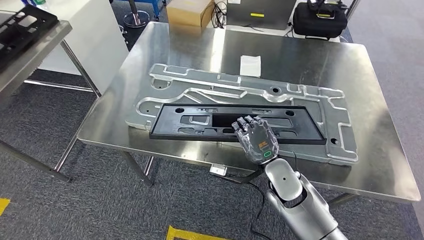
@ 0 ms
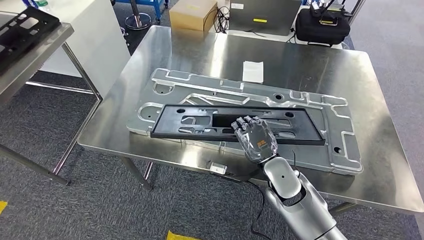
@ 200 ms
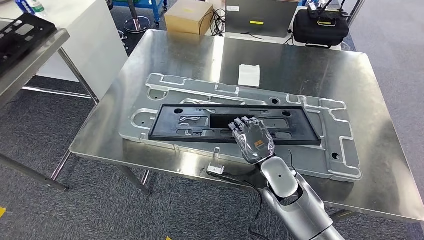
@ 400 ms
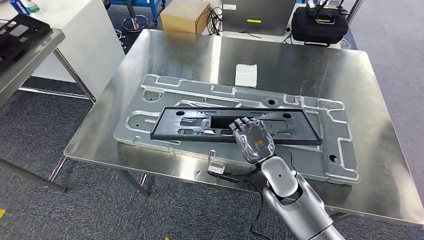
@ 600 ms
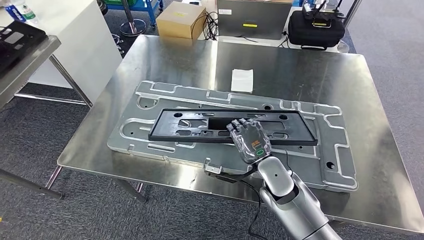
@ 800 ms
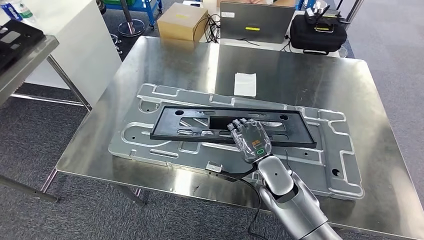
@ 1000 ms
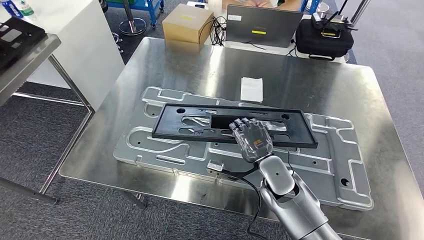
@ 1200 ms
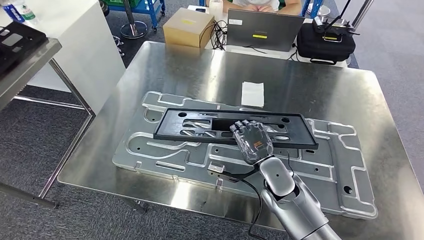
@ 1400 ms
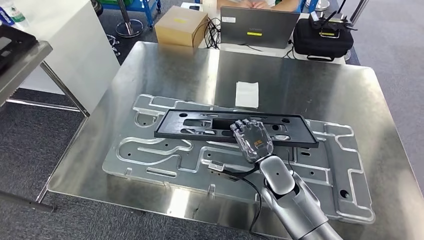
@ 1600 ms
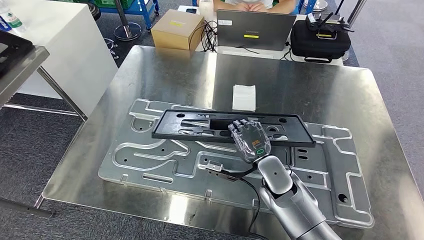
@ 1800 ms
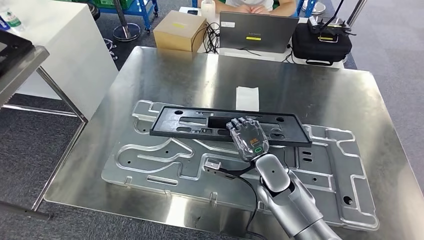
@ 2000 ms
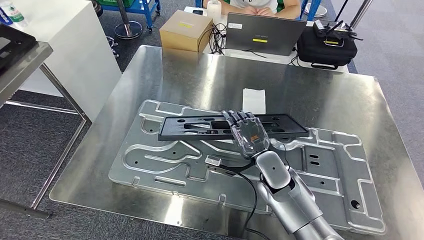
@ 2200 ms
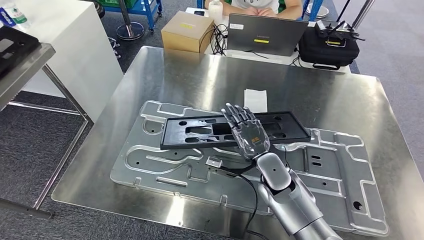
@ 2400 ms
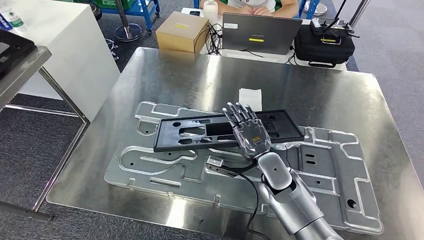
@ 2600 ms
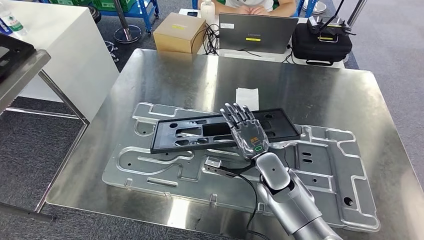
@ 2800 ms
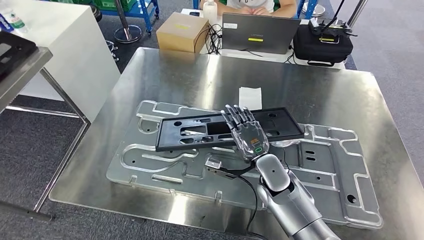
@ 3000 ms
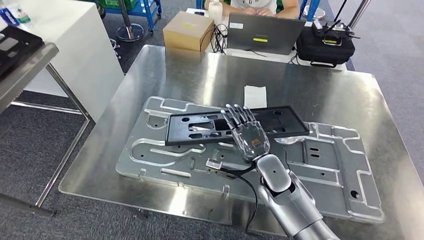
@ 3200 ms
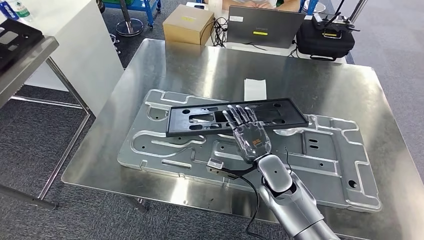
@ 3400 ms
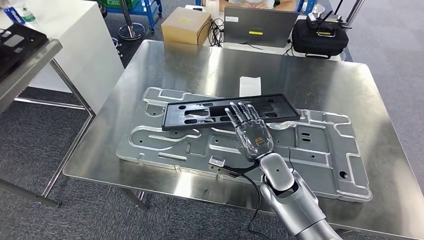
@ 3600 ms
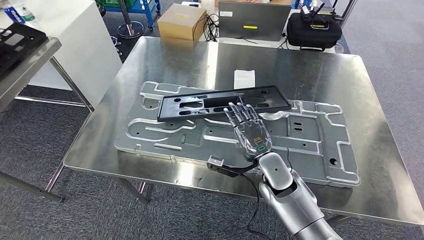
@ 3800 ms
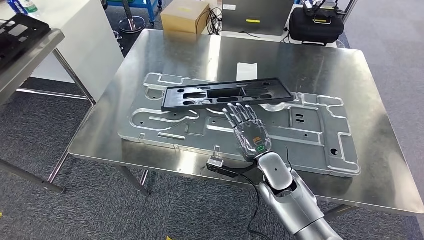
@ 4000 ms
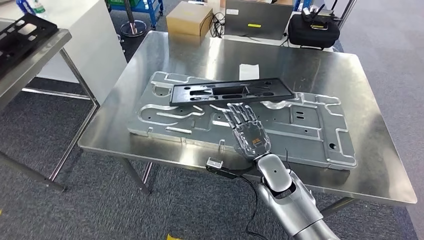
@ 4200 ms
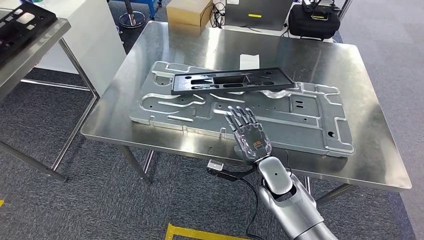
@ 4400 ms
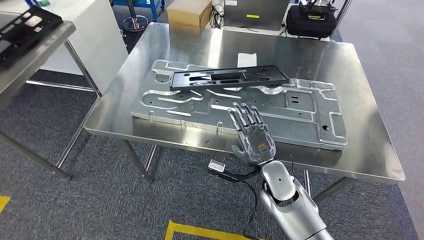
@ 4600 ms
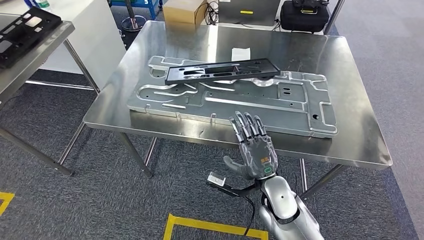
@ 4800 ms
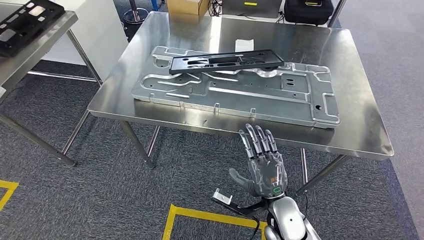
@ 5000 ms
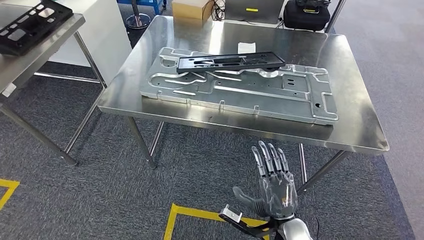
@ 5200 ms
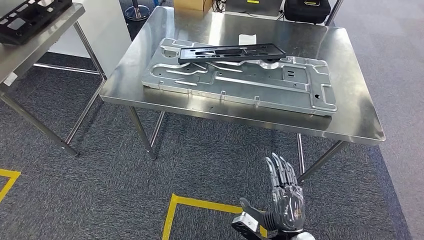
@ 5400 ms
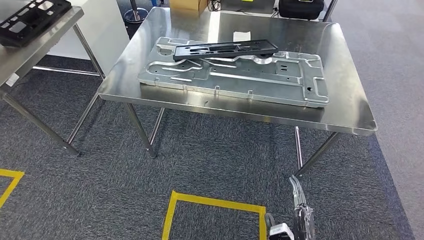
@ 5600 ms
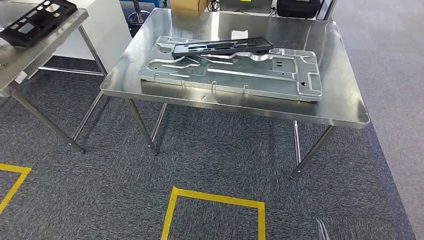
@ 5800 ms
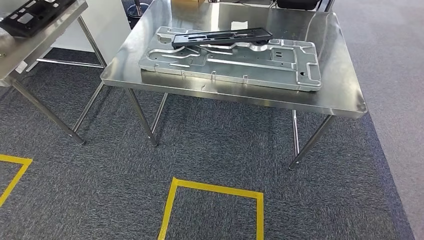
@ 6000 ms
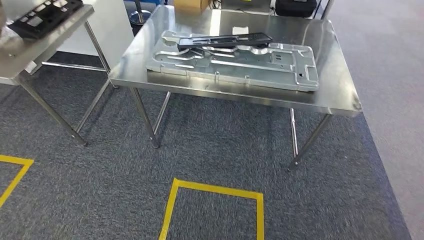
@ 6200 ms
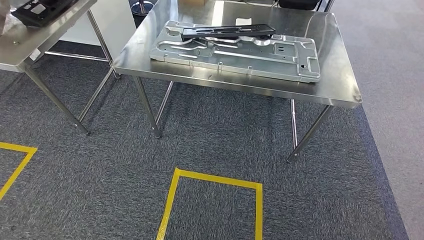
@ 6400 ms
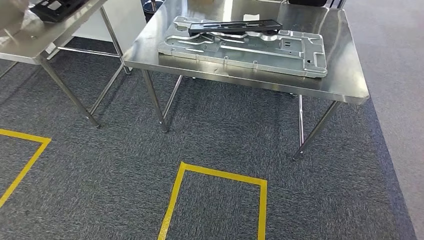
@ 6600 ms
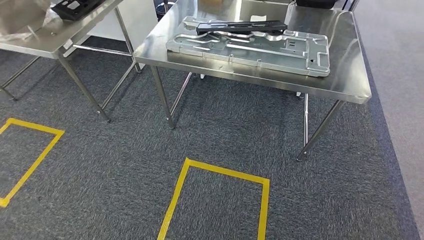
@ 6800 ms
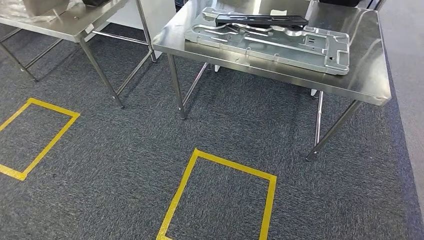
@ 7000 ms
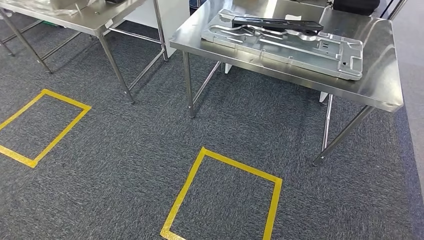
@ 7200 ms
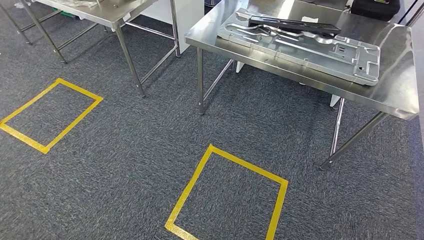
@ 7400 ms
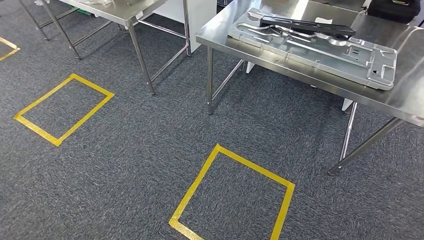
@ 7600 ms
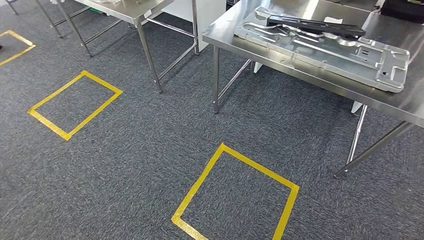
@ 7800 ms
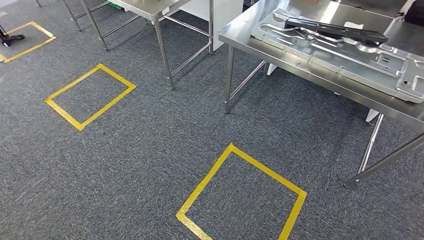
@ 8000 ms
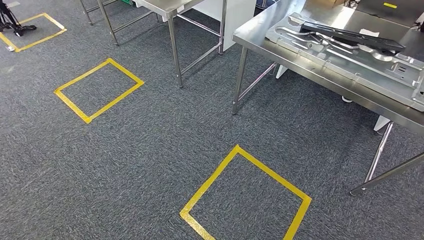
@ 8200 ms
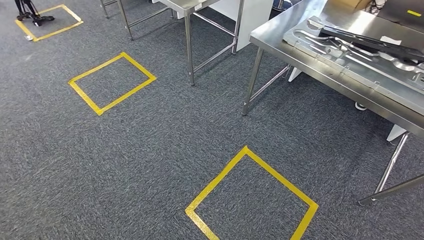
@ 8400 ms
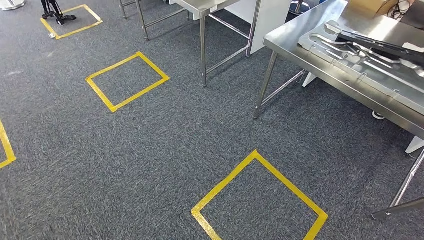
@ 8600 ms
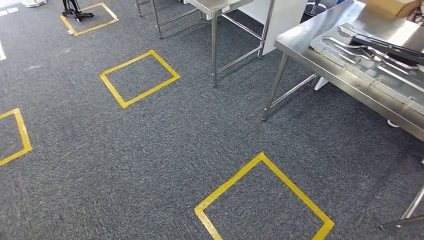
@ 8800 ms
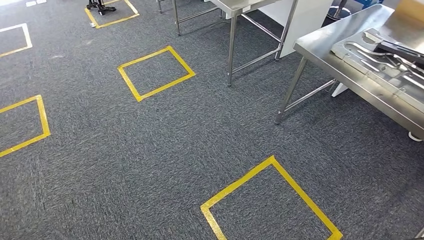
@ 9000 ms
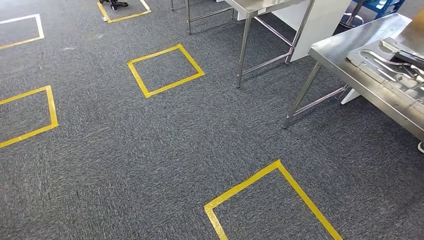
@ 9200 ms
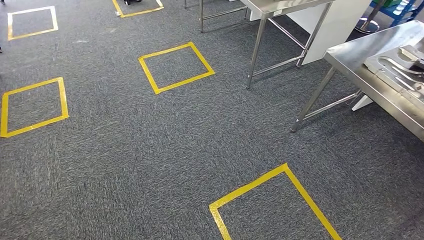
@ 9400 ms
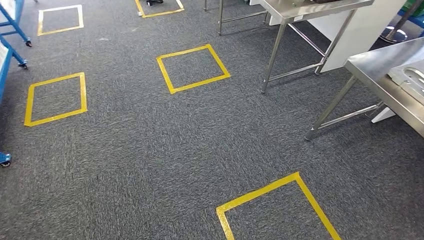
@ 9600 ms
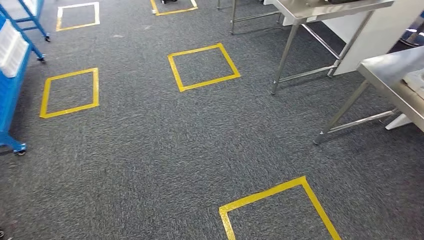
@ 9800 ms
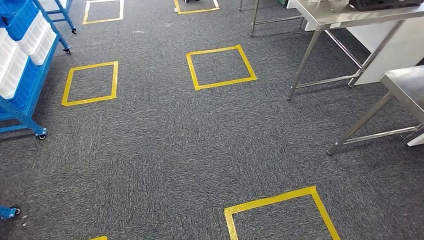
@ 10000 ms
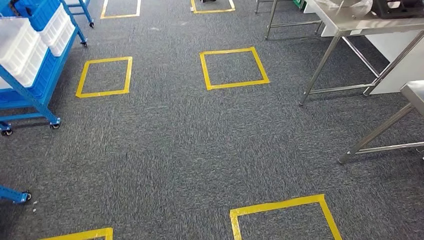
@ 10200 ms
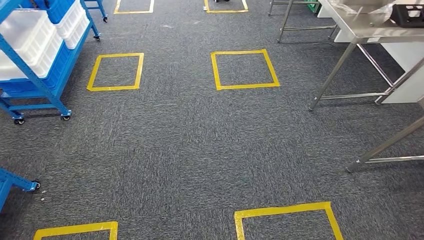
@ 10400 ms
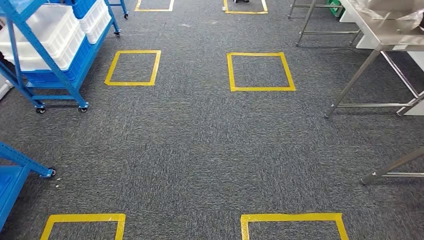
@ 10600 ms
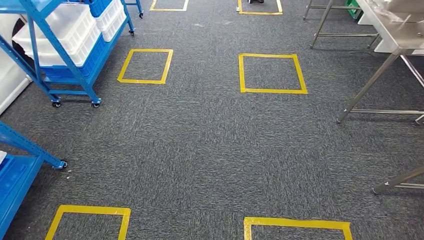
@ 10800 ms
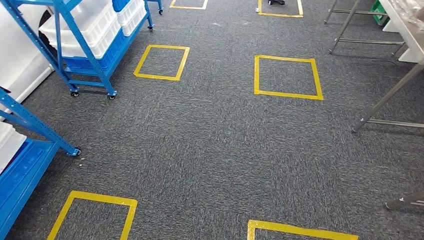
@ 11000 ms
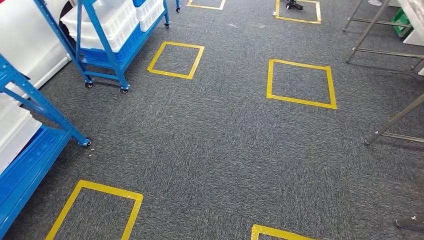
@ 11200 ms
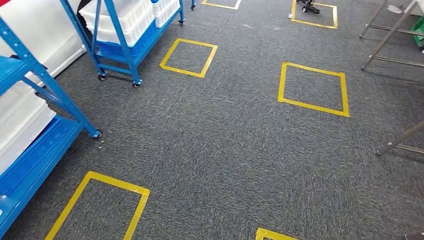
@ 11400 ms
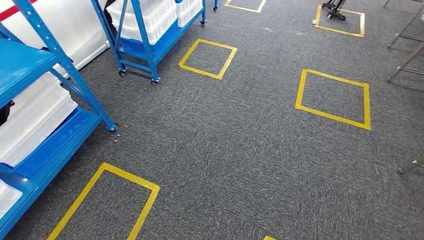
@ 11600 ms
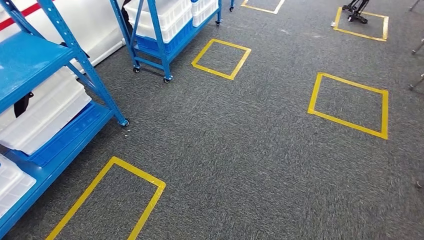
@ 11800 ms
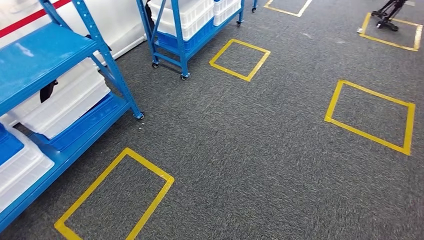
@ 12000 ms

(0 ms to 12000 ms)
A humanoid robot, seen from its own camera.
Step, 0 ms - 6800 ms: Insert the large material into the corresponding slot on the workbench.

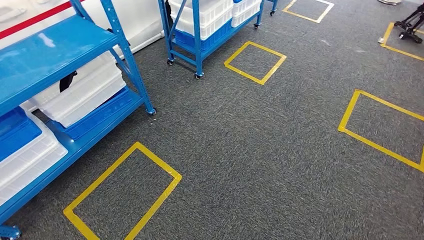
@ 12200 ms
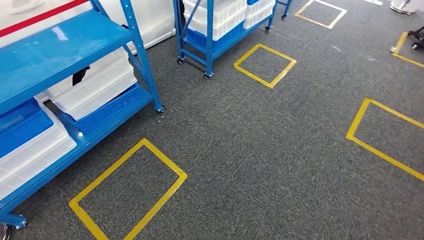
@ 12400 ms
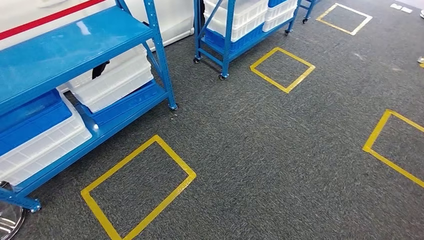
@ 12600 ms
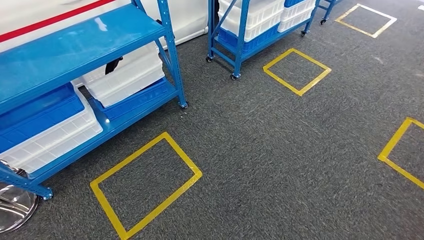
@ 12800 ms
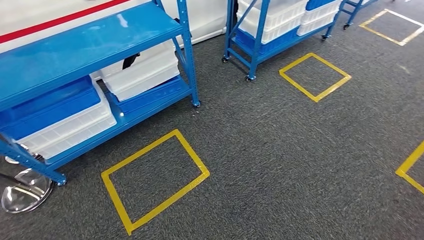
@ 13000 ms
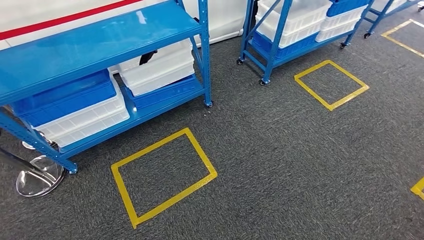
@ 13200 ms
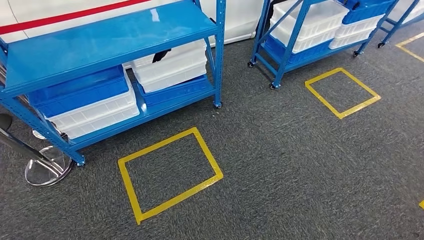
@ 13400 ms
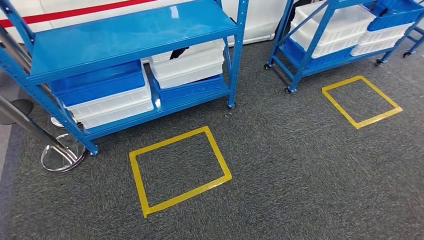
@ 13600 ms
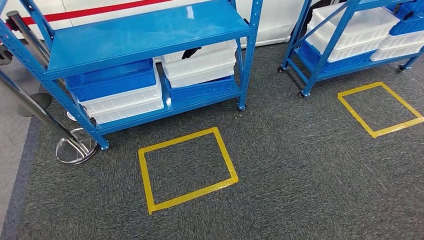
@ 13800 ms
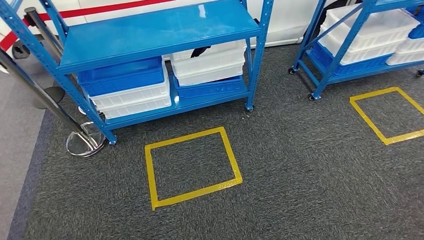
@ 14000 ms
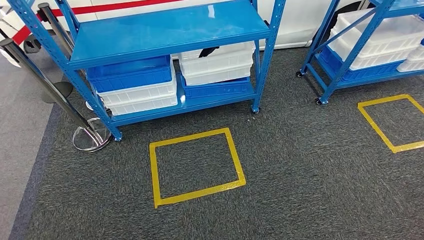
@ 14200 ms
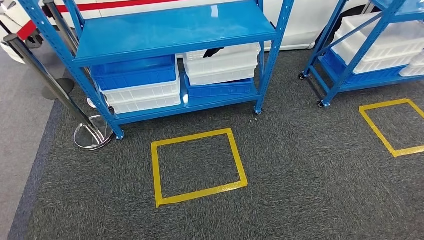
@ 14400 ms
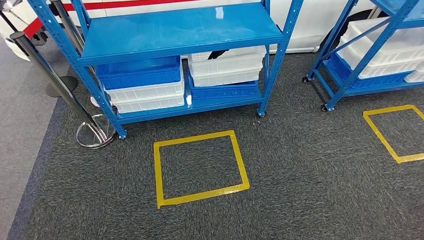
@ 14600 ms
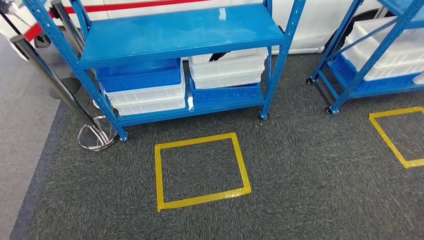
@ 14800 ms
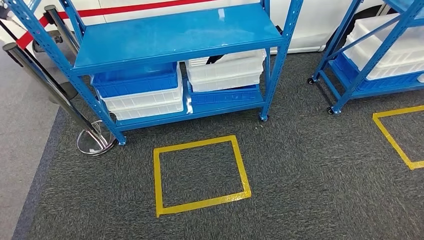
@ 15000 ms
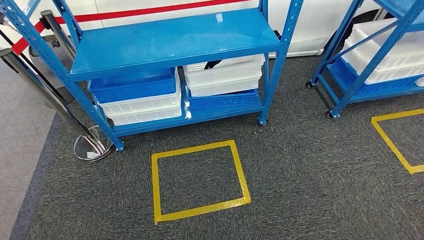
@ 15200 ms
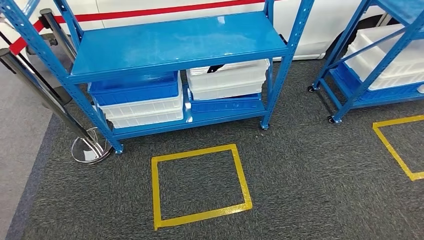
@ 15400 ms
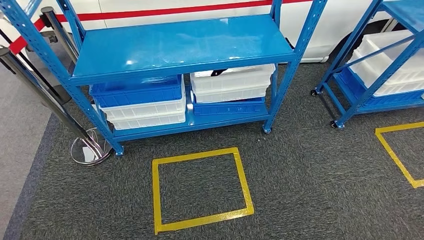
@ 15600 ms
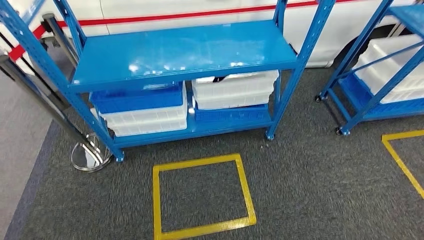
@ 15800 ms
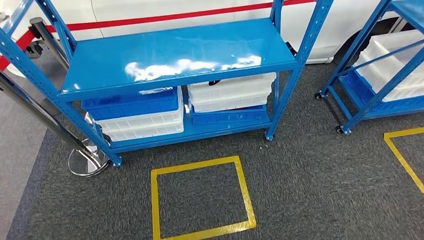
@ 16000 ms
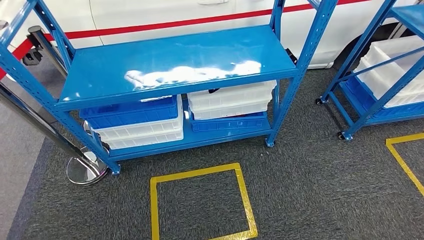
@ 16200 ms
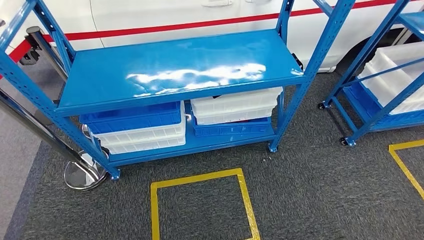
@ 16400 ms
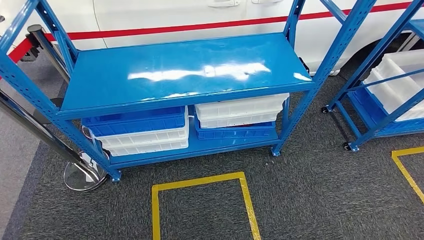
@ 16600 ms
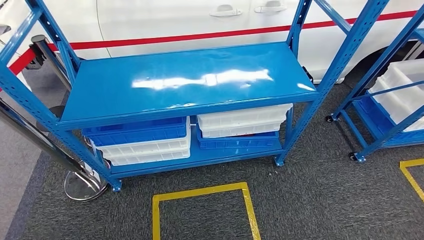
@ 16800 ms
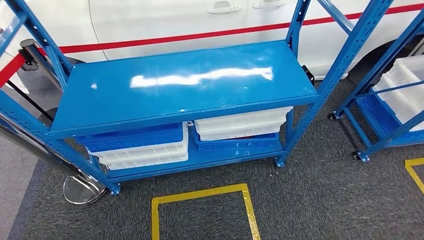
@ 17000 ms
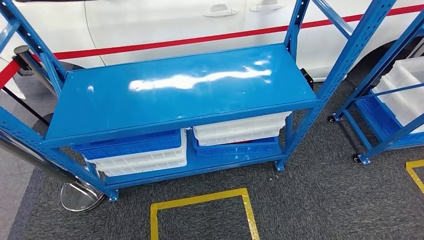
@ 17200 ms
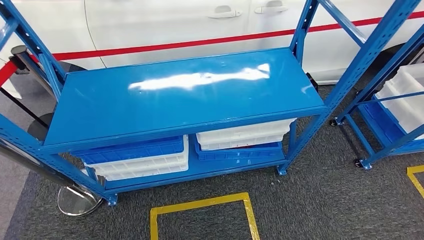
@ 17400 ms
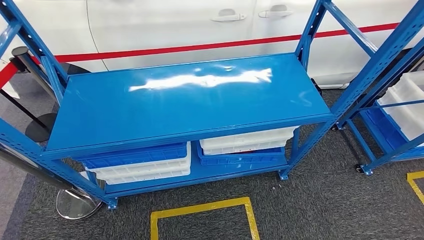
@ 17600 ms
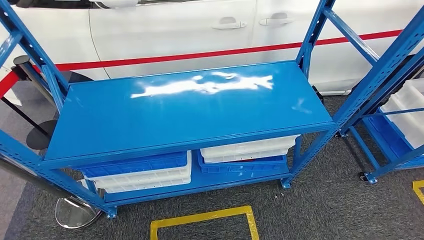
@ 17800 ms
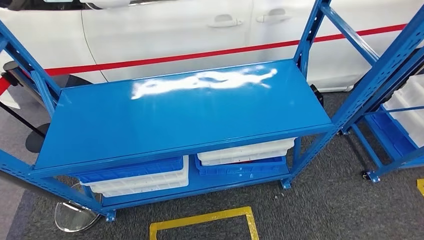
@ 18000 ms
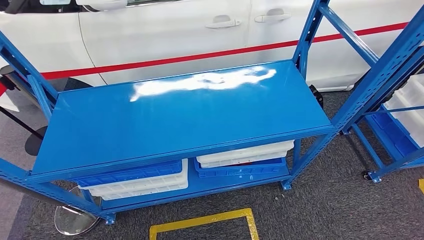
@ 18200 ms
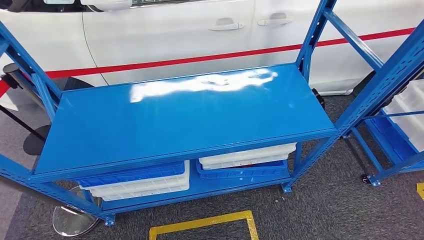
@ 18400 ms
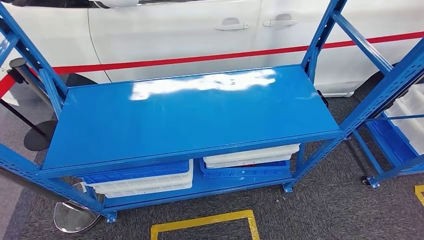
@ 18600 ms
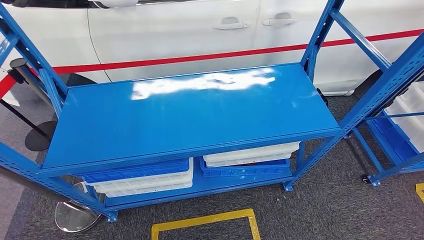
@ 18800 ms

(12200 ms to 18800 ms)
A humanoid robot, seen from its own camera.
Step, 12200 ms - 18800 ms: Return to the initial position at the shelf.
